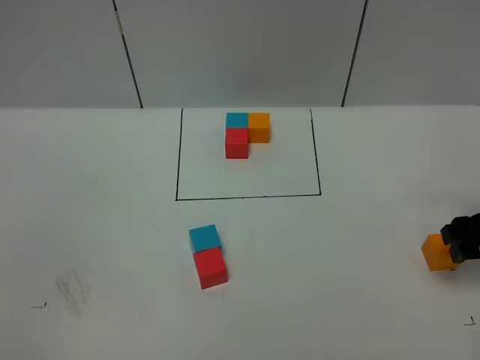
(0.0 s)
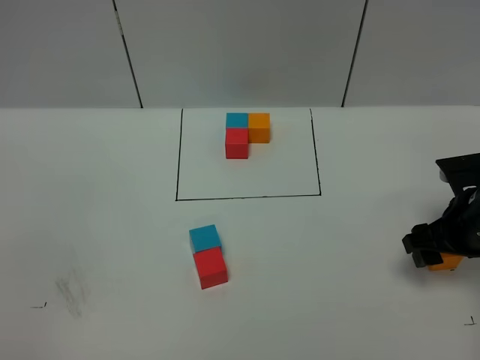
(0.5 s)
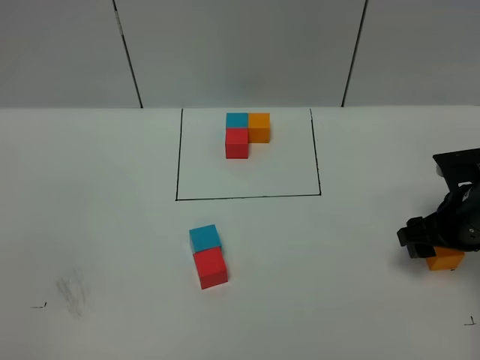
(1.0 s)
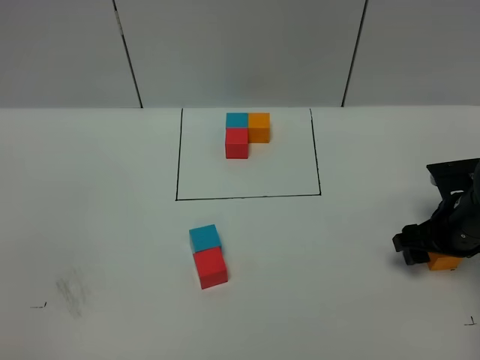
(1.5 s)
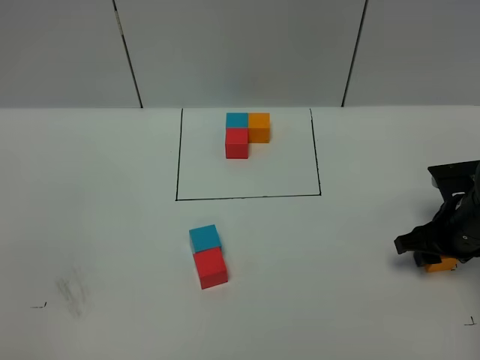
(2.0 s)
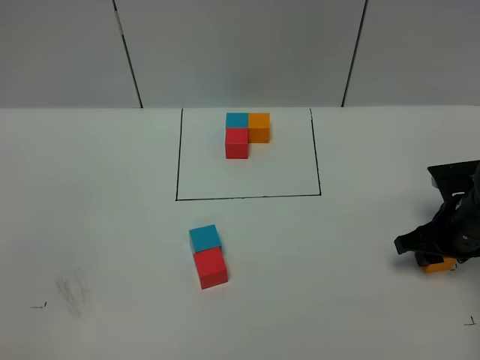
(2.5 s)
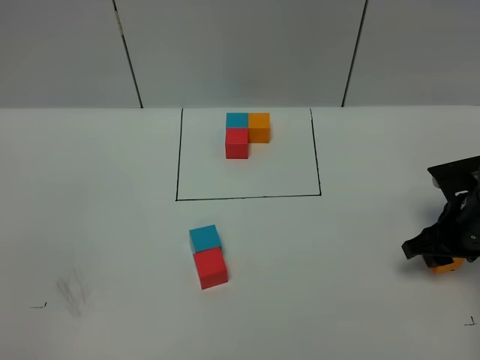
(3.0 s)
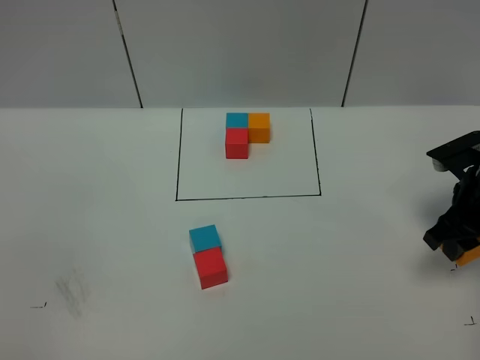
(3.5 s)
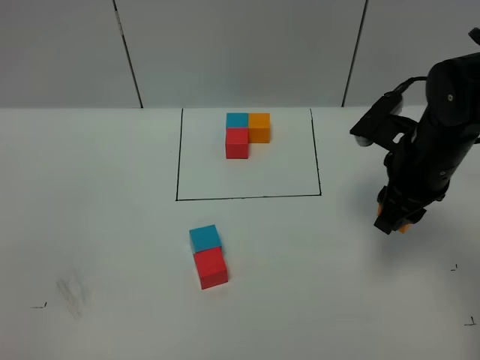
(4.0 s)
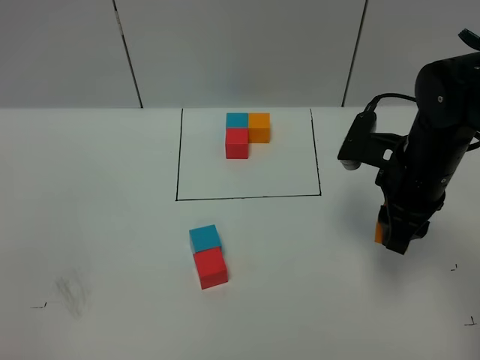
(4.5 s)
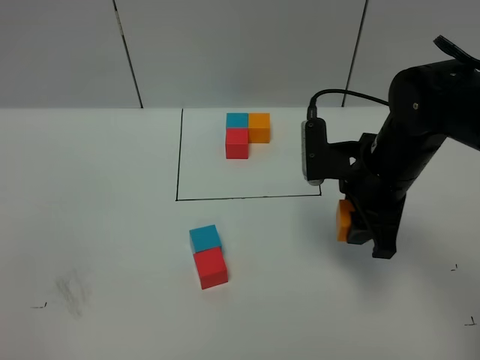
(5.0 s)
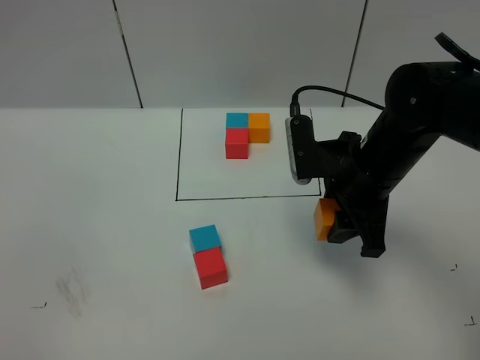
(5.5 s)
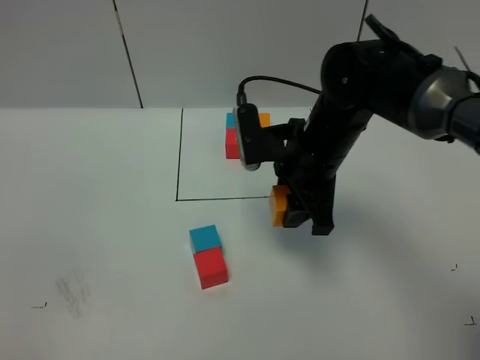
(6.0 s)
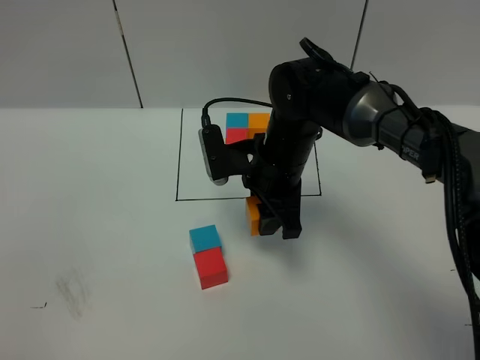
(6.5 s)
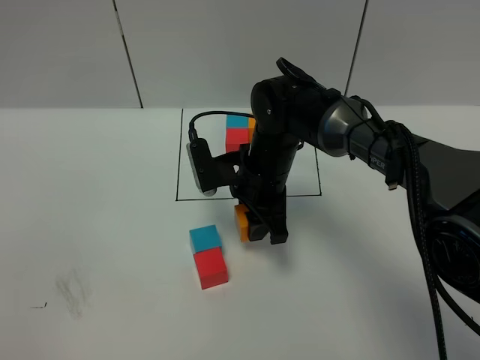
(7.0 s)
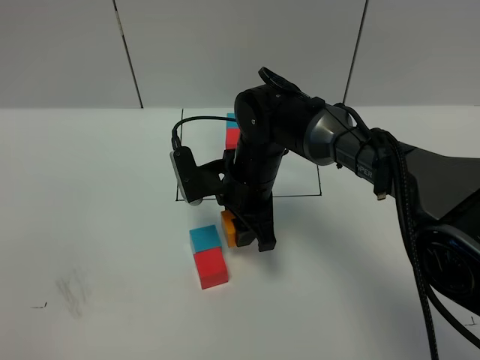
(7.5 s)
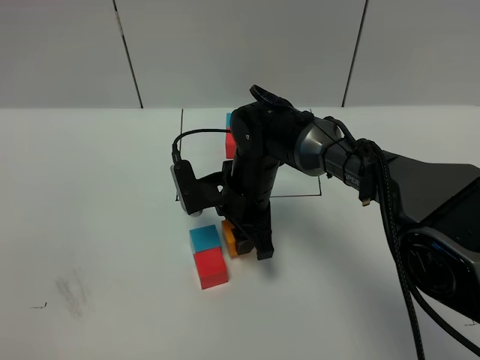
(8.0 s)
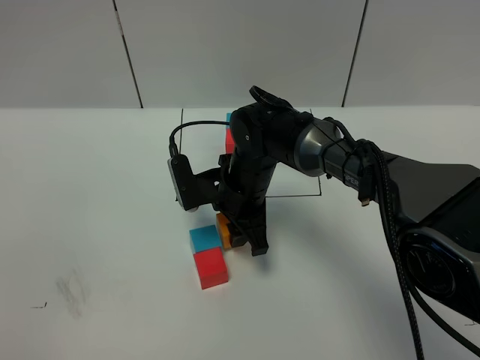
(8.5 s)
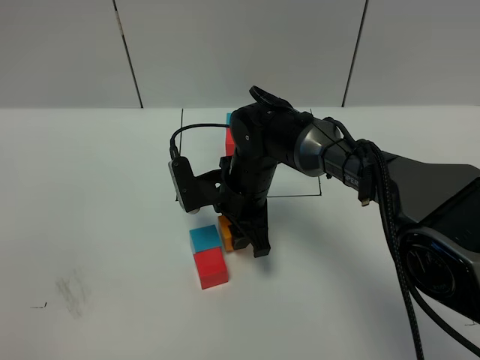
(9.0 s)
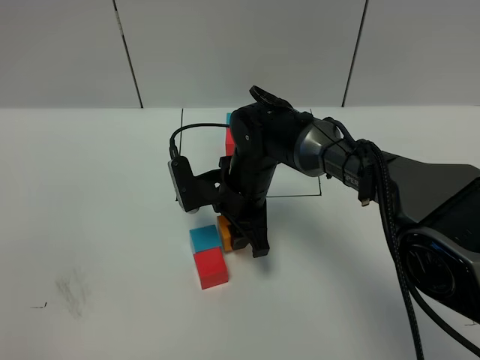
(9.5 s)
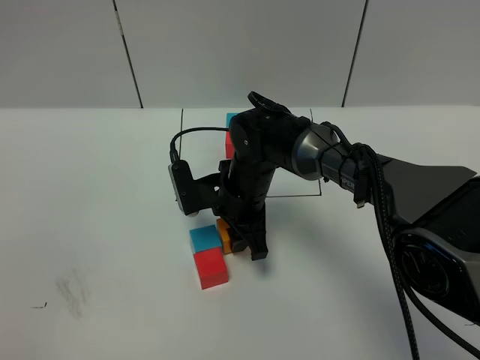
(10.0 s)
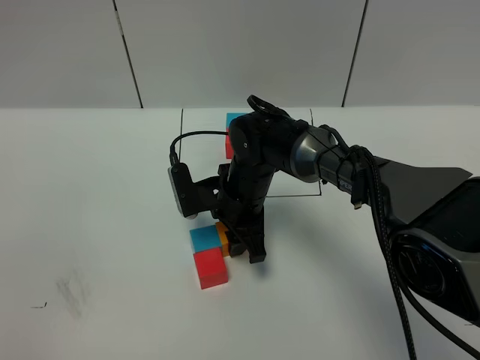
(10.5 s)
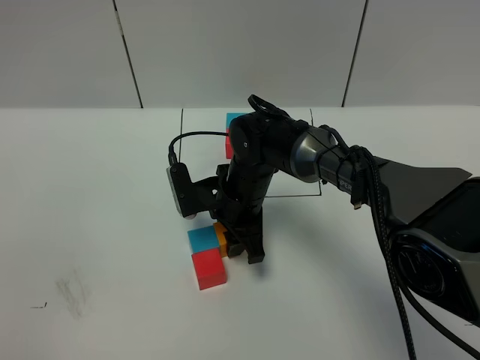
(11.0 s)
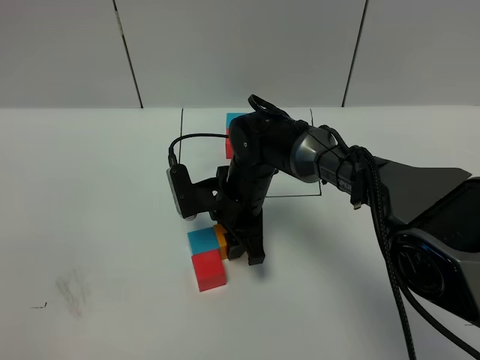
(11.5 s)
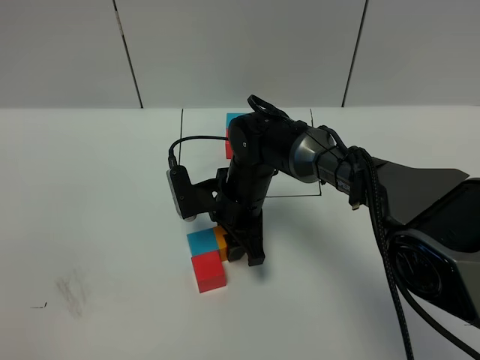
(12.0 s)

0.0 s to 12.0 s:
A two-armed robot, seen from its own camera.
Task of the whole recording: According to the building block template in front, assemble the scattered blocks together.
0.0 to 2.0 s: The right gripper heads downward, covering some 5 cm, and closes.
2.0 to 4.0 s: The right gripper heads upward and to the left, covering roughly 15 cm.
4.0 to 6.0 s: The right gripper goes about 10 cm to the left.
6.0 to 8.0 s: The right gripper travels downward and to the left by approximately 10 cm.
8.0 to 10.0 s: The two grippers keep their place.
10.0 to 12.0 s: Both grippers stay put.

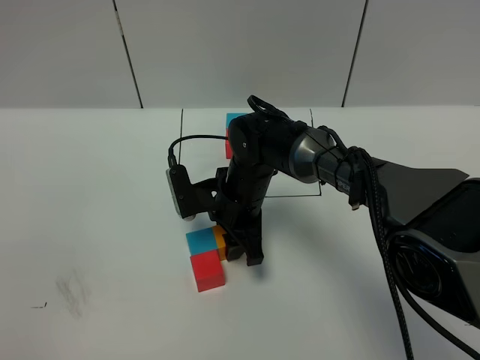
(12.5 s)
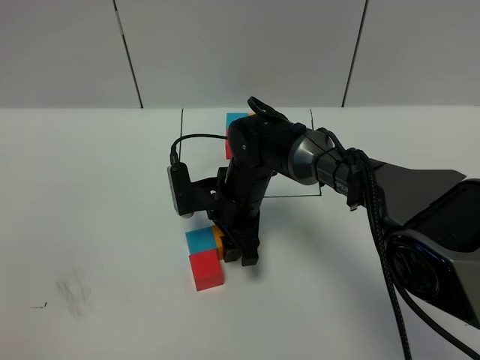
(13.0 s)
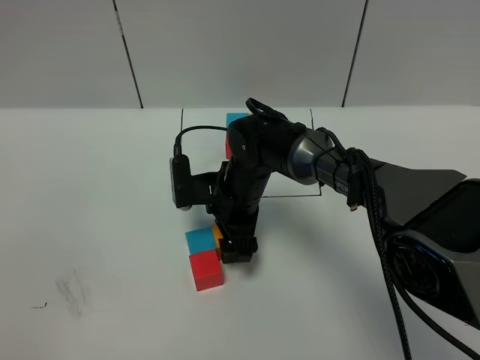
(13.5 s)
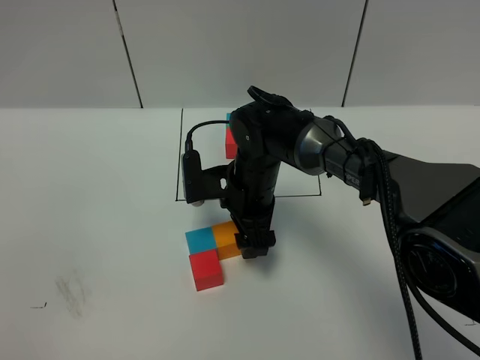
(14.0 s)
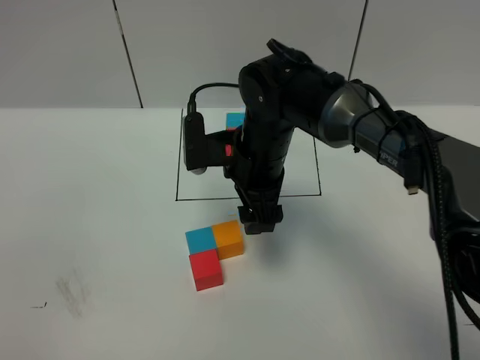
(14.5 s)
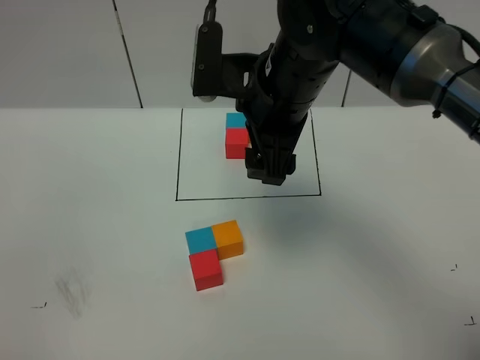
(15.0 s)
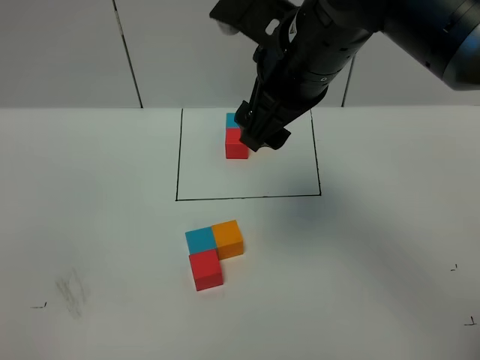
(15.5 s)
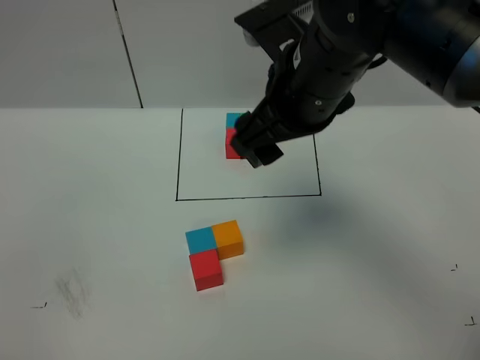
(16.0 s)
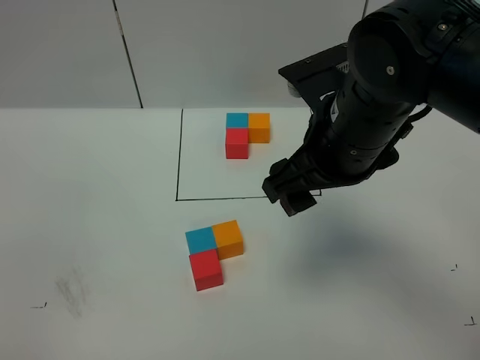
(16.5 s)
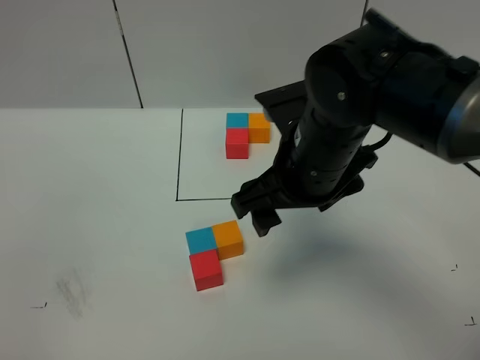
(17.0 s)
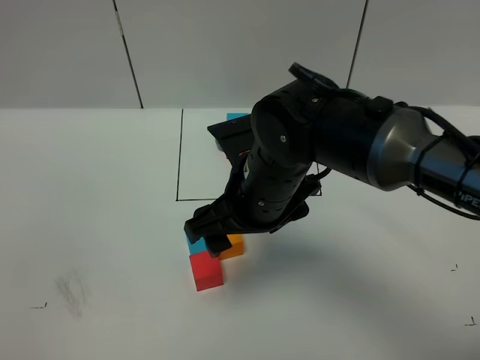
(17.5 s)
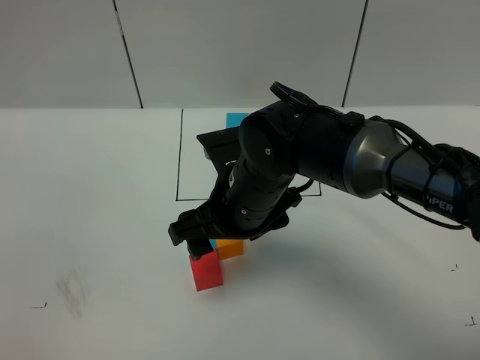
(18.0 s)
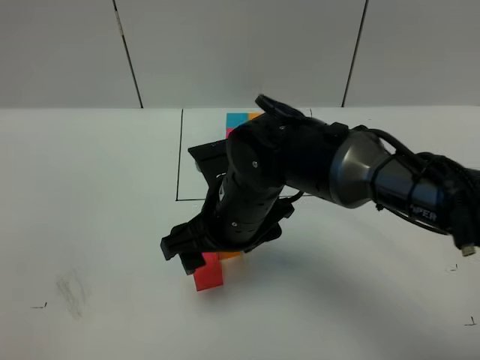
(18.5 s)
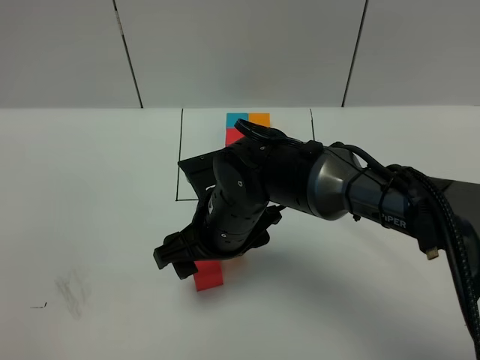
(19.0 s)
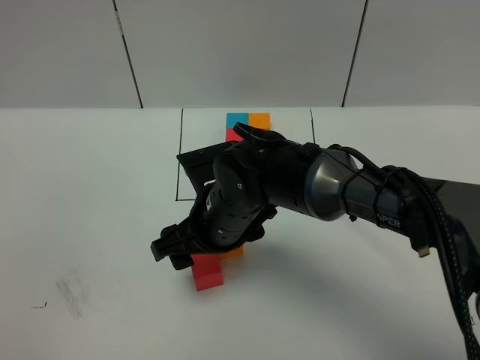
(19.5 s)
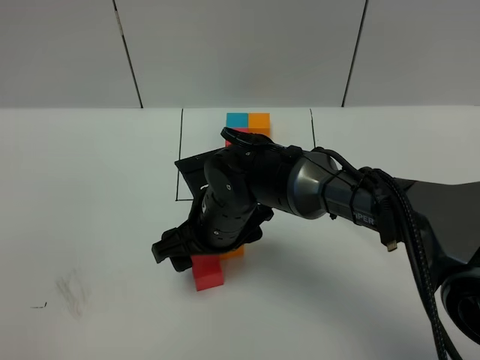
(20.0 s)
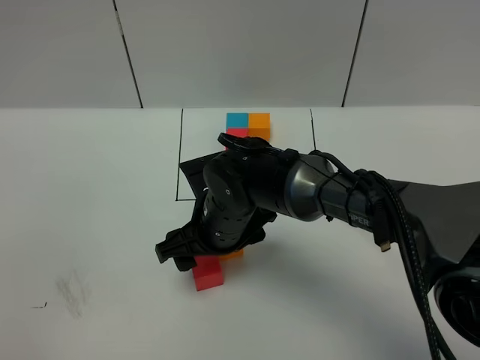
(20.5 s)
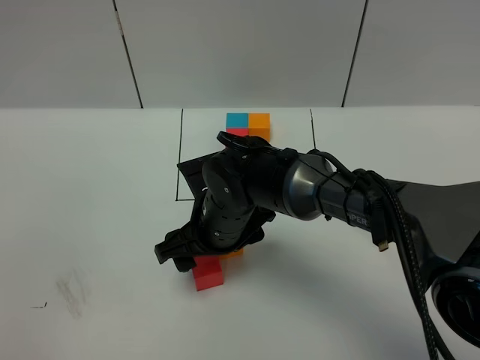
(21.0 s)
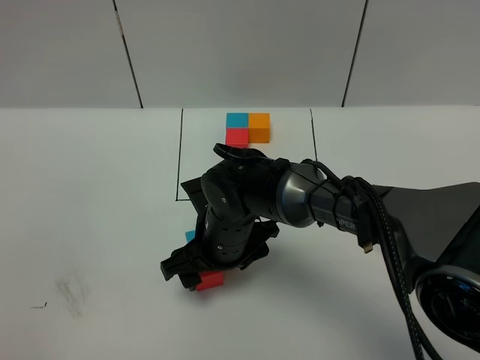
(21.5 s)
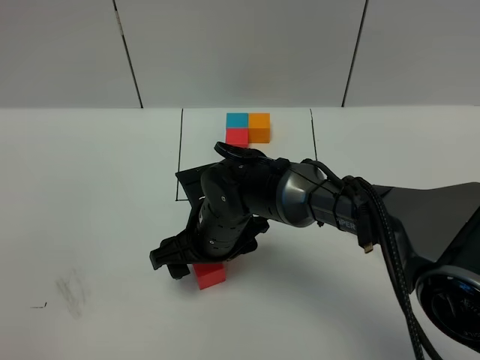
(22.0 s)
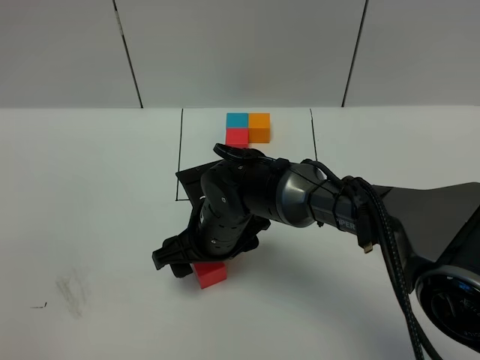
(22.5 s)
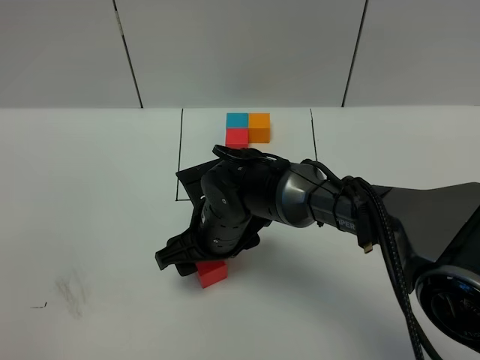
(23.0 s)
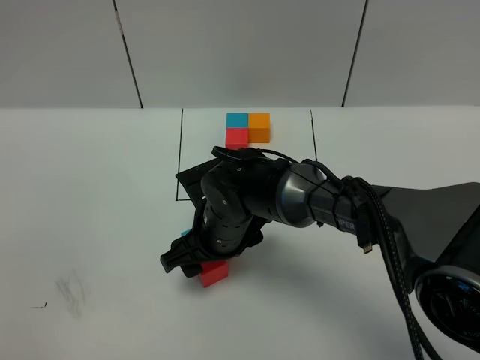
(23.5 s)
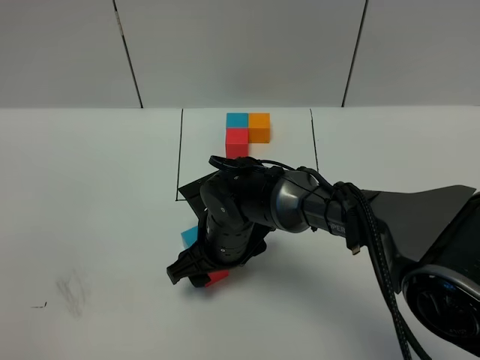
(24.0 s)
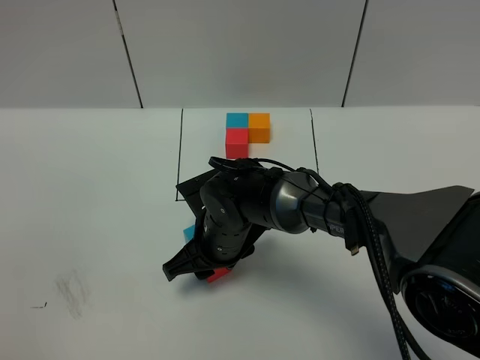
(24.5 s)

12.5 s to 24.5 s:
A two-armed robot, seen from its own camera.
Task of the whole recording: According to the building block template in front, assemble the scattered blocks together.
12.5 to 14.5 s: The right gripper heads upward, covering about 10 cm, and opens.
14.5 to 16.5 s: The right gripper moves upward, backward and to the right, approximately 15 cm.
16.5 to 18.5 s: The right gripper goes approximately 15 cm downward and to the left.
18.5 to 20.5 s: The right gripper heads downward, covering roughly 5 cm.
20.5 to 22.5 s: There are only small adjustments of the grippers.
22.5 to 24.5 s: The right gripper closes its fingers.

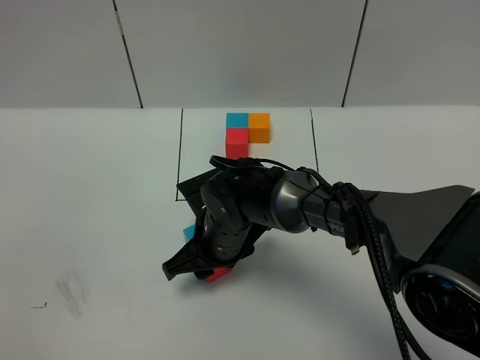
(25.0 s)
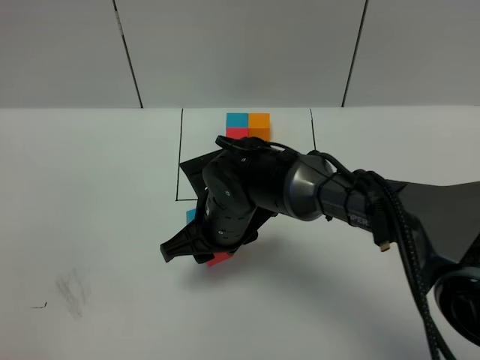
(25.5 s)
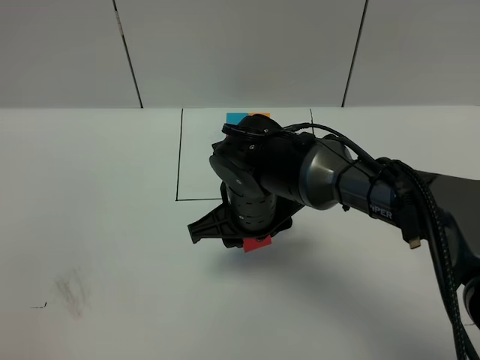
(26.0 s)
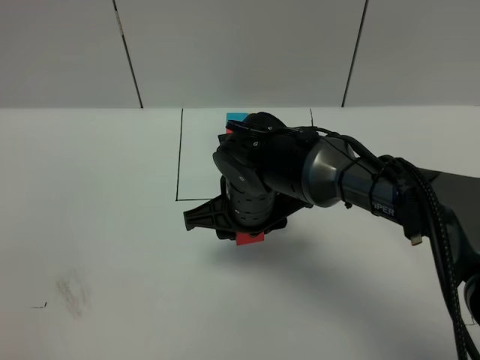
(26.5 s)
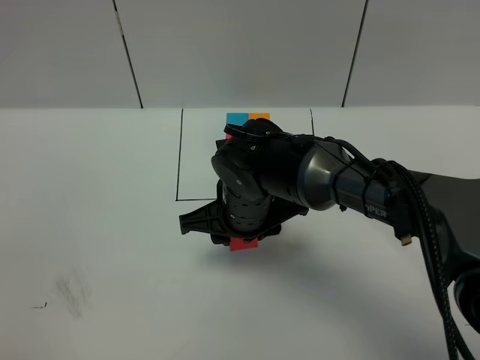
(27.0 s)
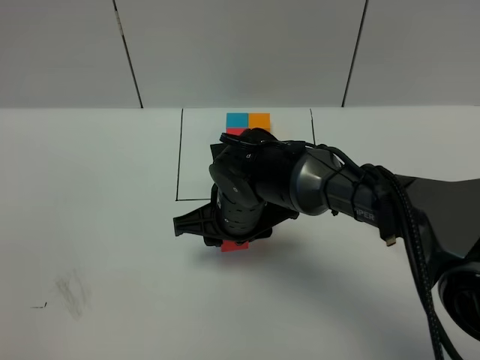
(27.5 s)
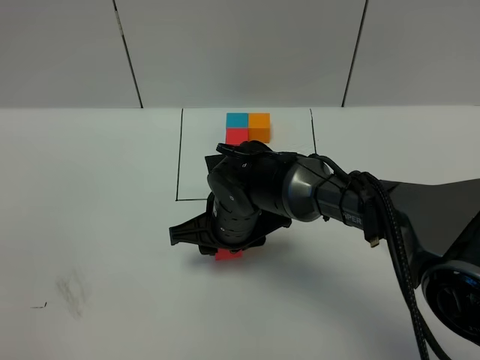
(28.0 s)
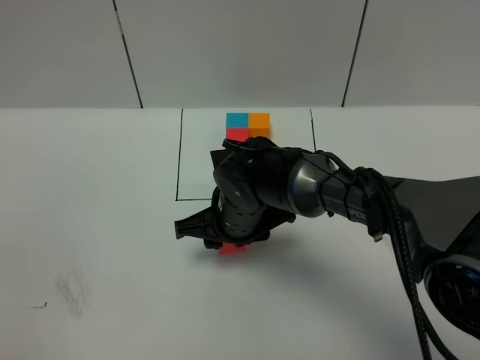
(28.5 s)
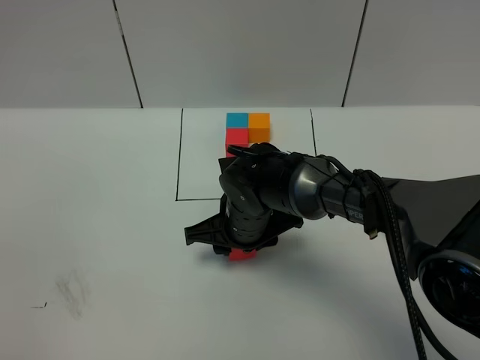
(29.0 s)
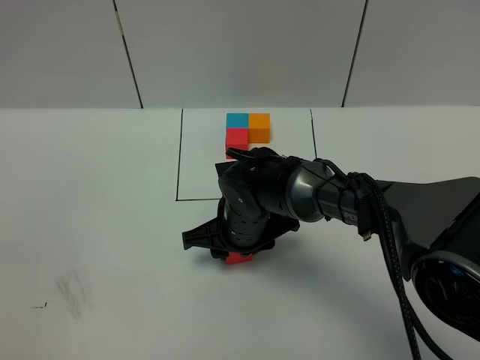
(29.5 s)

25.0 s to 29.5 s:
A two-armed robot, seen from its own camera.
Task of the whole recording: According to the building block template in front, assemble the scattered blocks together.
25.0 to 27.0 s: The right gripper heads upward, covering some 5 cm.
27.0 to 29.5 s: The right gripper shifts roughly 5 cm downward.
